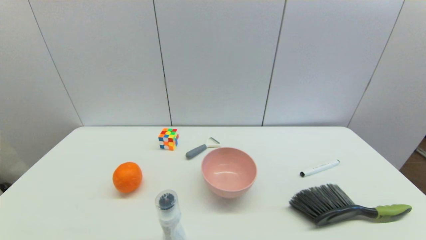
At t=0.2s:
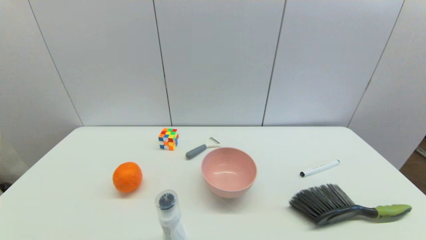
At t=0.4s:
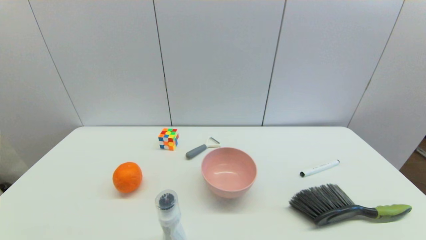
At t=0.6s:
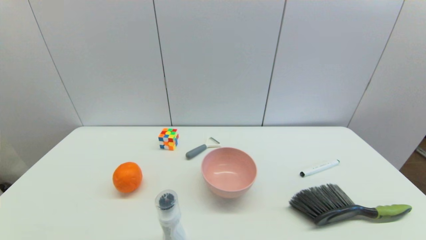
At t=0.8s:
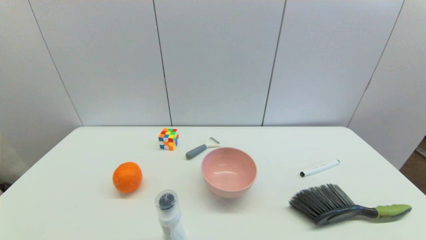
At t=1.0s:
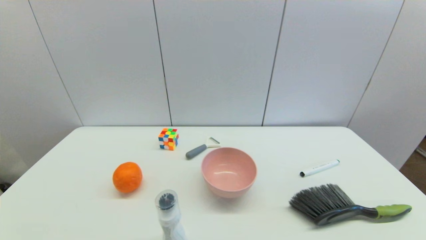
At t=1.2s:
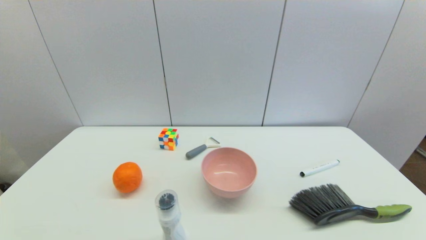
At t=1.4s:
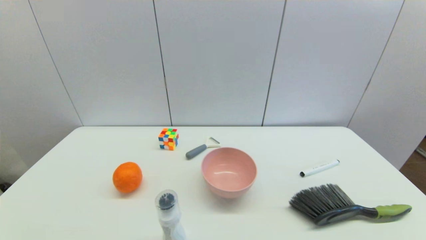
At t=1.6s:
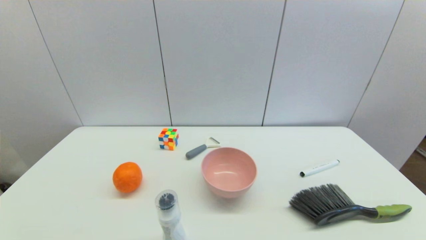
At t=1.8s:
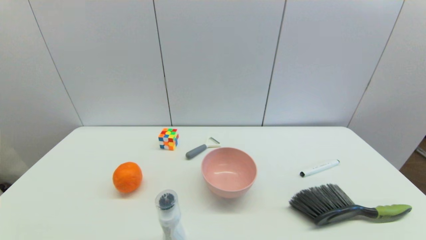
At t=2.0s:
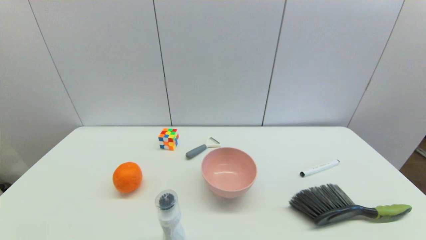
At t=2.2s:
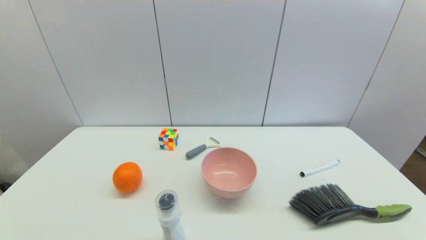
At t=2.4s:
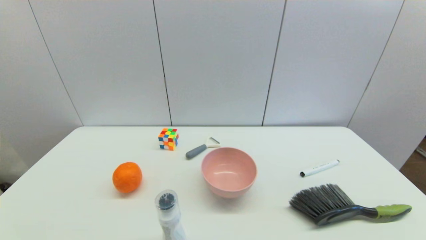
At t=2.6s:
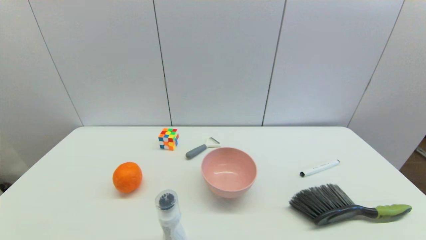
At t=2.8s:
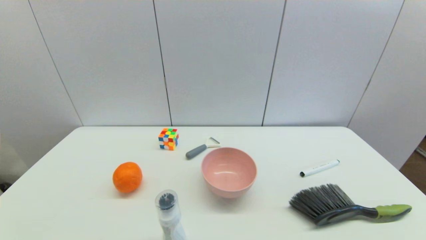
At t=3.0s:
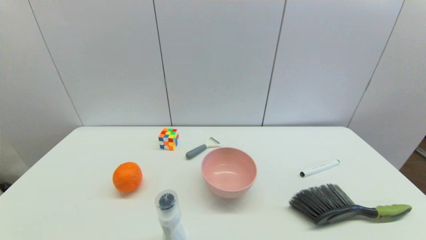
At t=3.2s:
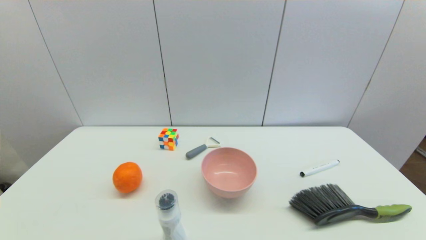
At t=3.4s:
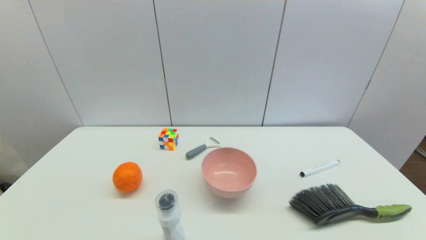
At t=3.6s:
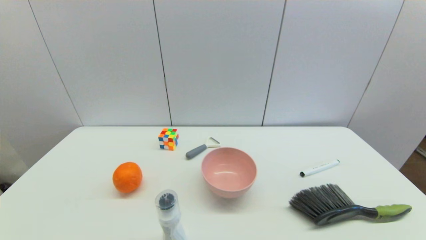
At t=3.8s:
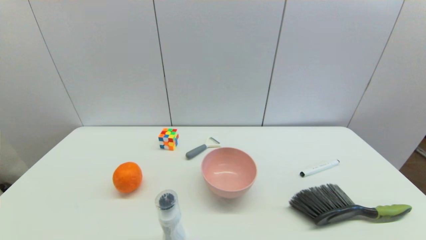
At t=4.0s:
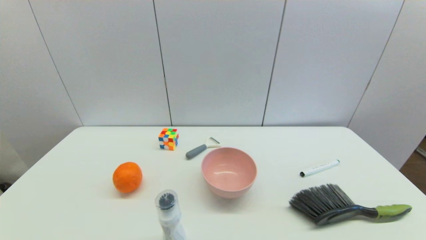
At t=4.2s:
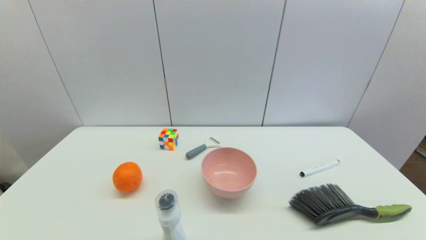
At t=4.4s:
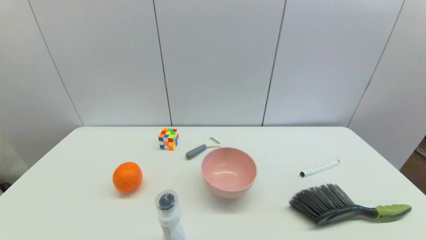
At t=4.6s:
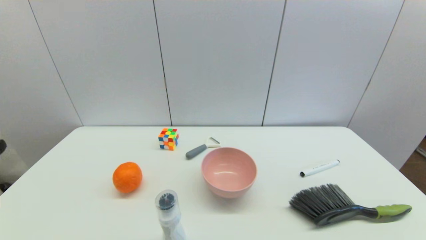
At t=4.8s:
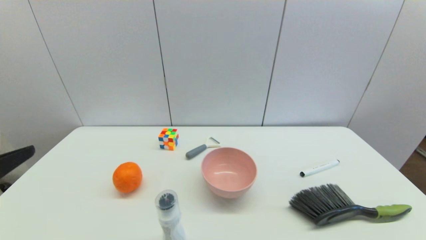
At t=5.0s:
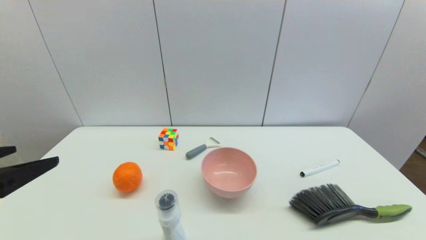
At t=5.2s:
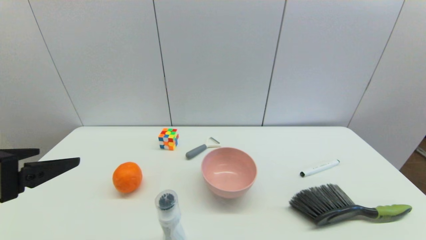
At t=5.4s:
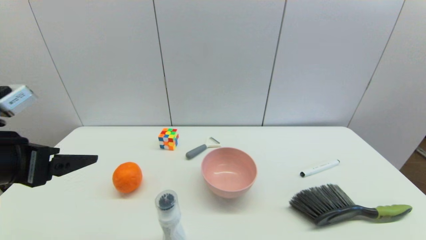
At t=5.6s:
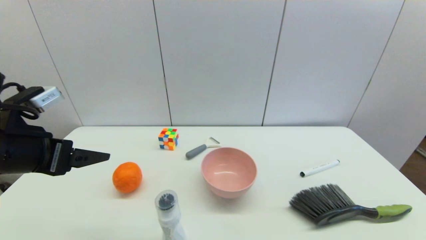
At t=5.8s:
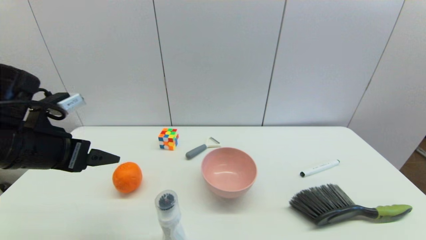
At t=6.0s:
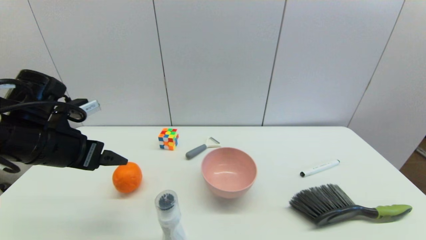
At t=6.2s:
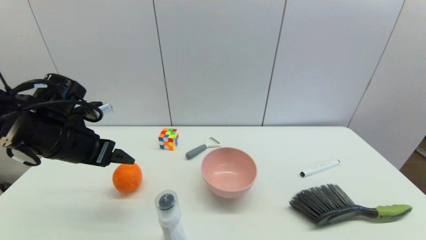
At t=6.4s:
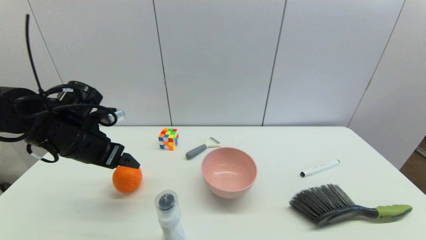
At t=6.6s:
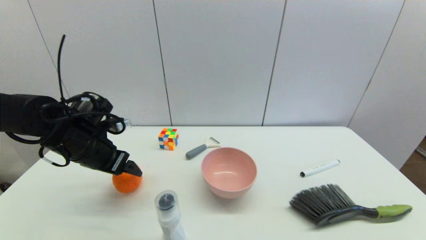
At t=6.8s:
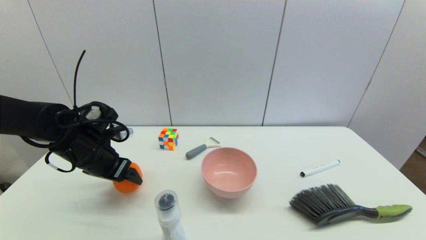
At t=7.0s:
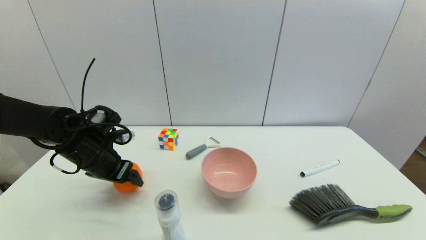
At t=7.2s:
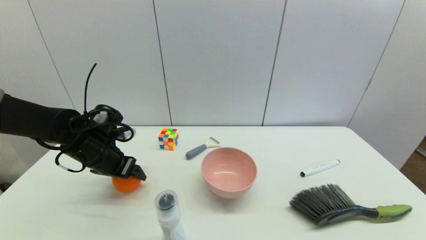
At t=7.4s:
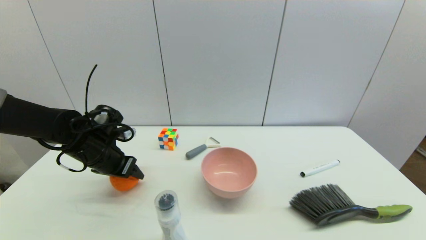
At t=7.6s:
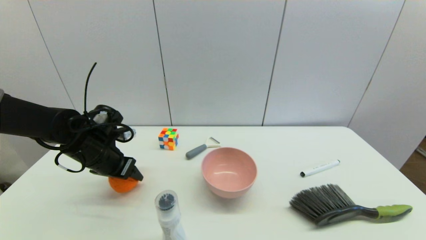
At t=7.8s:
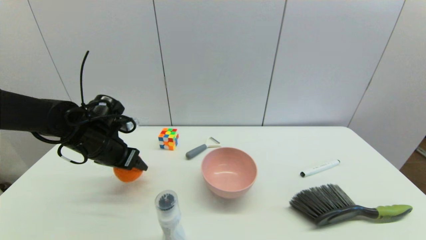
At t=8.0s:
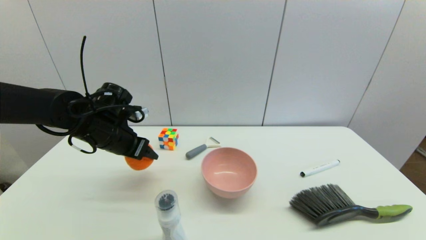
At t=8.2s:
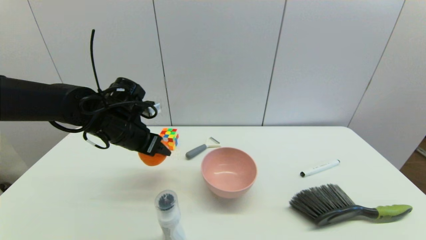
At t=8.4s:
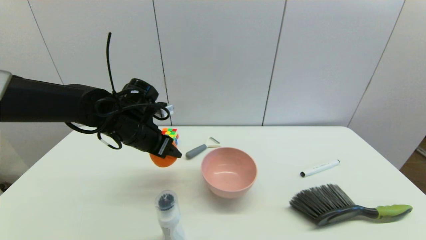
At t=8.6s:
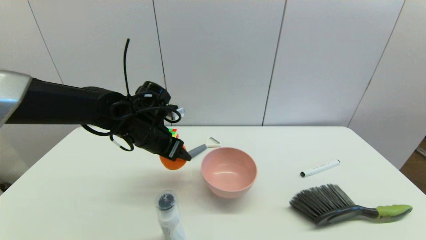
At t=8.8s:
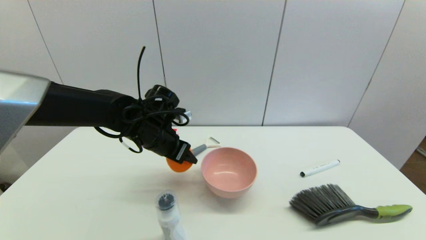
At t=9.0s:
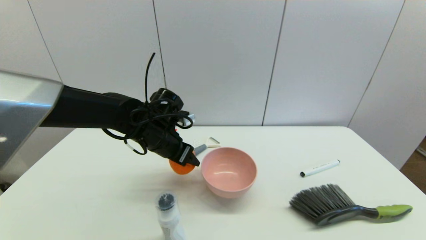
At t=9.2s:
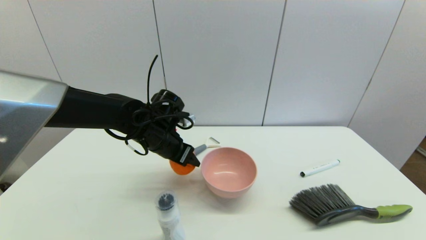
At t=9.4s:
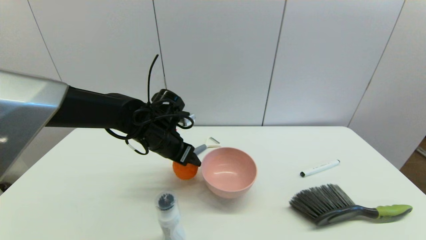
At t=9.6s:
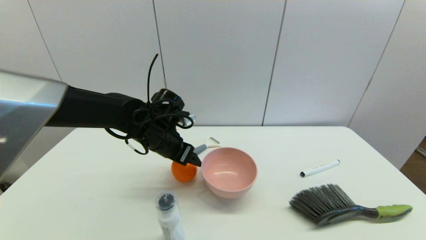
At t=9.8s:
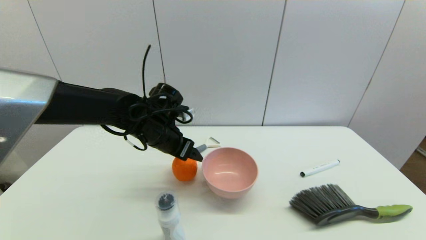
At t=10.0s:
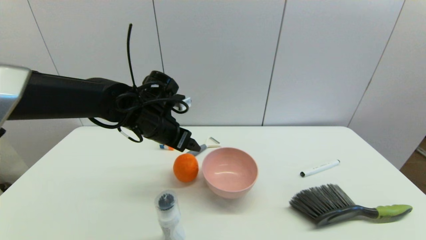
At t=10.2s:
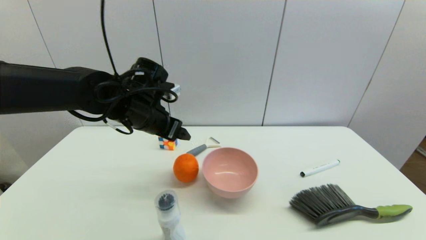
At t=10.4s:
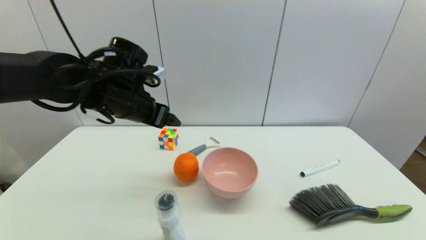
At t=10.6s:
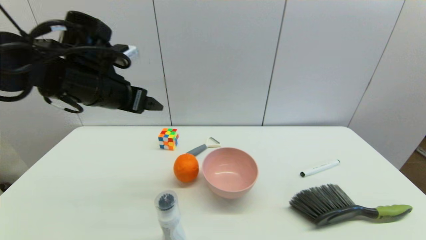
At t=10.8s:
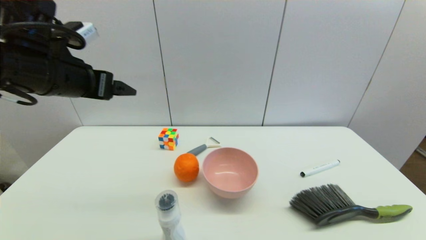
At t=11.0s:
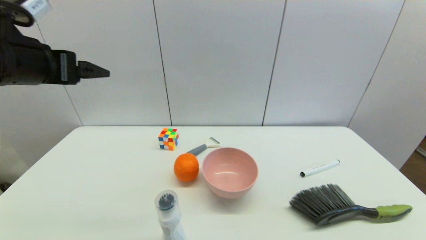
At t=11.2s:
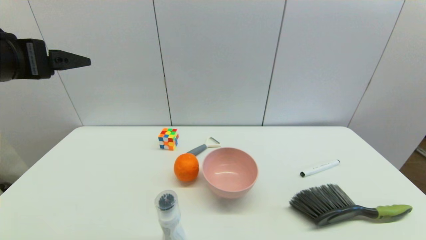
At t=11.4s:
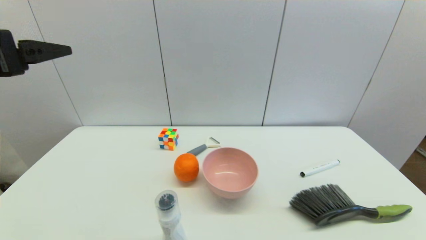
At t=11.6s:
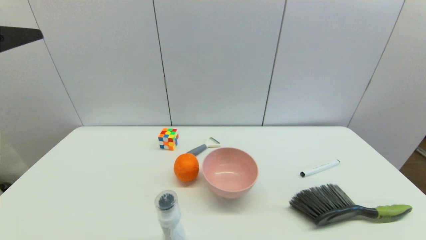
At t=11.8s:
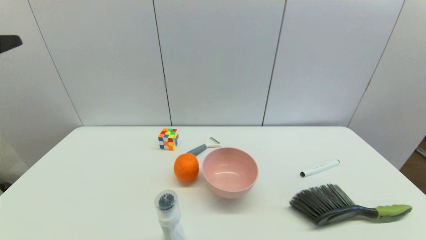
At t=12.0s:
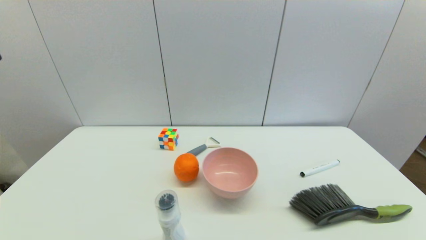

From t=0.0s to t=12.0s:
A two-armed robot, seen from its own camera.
Step, from t=4.8s to t=7.4s: Grasp the orange with left gripper.
Step, from t=7.8s to t=9.4s: Place the orange on the table with left gripper.
From t=0.0s to t=1.6s: Both grippers stay put.
From t=4.4s to t=6.0s: The left gripper travels forward by approximately 20 cm.
From t=6.0s to t=7.6s: The left gripper goes roughly 10 cm downward and forward, and closes.
From t=7.6s to t=9.0s: The left gripper shifts roughly 15 cm to the right.
From t=9.0s to t=10.4s: The left gripper goes approximately 10 cm upward and to the left, and opens its fingers.
From t=10.4s to t=12.0s: The left gripper goes some 25 cm backward and to the left.

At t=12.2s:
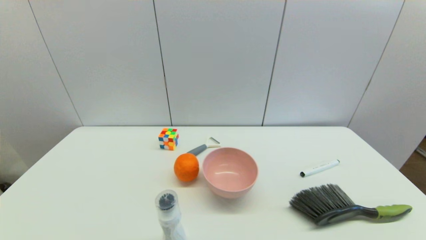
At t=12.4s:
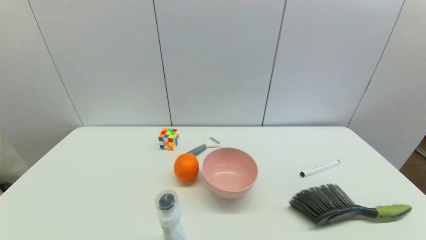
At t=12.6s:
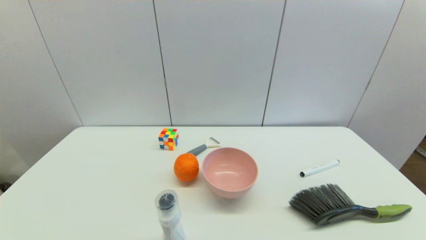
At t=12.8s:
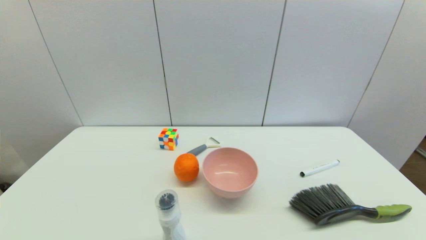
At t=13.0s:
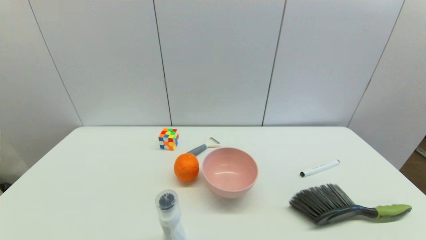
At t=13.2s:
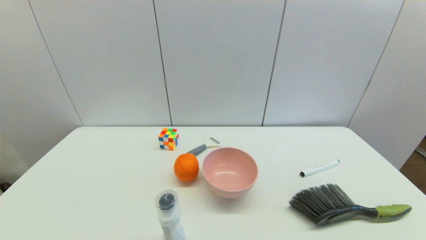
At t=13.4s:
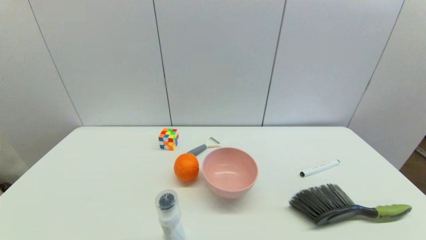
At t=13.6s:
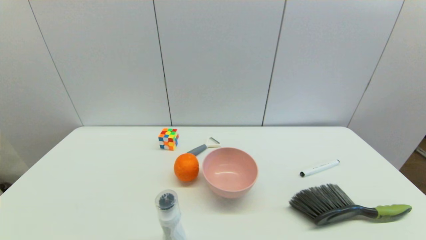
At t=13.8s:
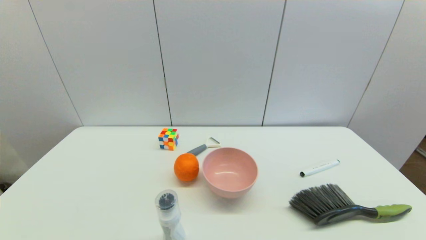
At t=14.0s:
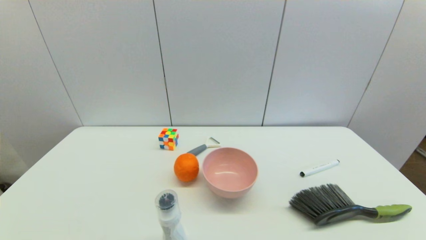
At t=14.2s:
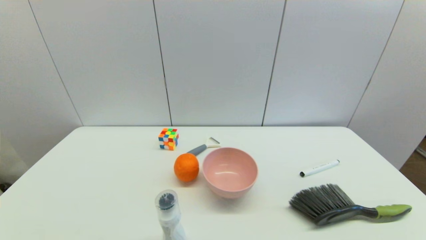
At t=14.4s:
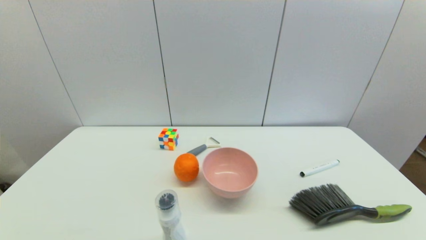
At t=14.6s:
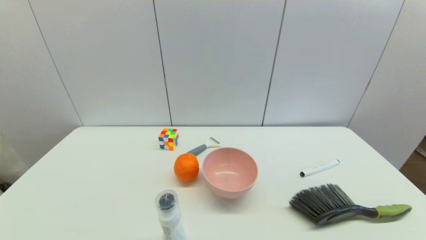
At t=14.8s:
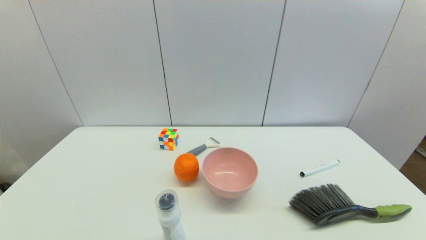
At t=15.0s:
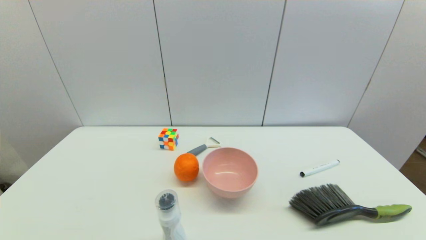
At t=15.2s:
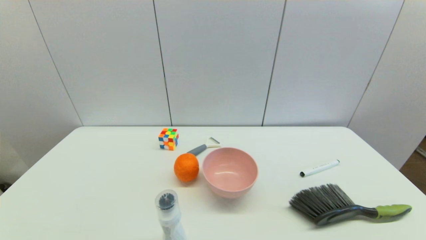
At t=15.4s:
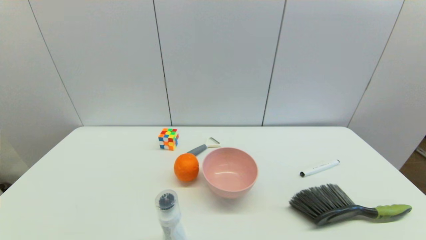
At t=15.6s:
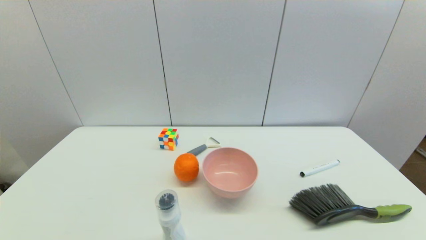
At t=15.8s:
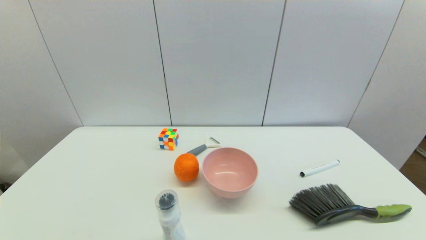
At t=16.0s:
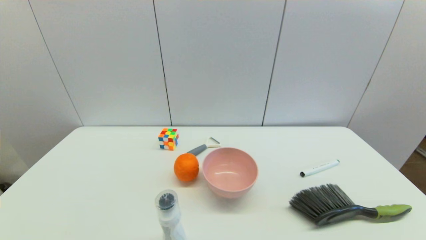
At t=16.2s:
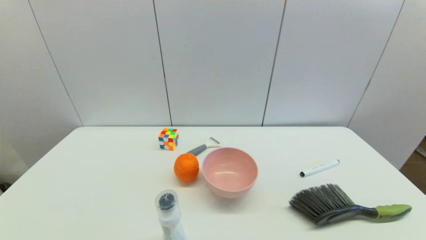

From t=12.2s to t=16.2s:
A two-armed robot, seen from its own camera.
From t=14.8s to t=16.2s: The two grippers keep their place.
